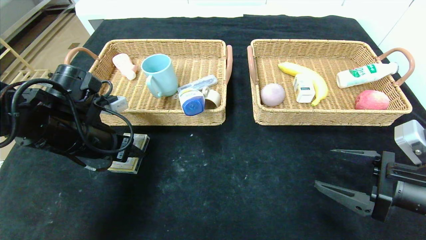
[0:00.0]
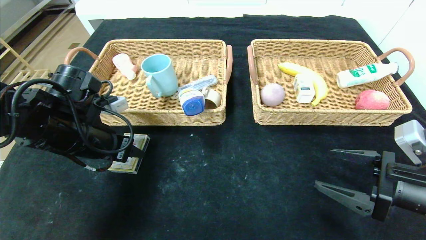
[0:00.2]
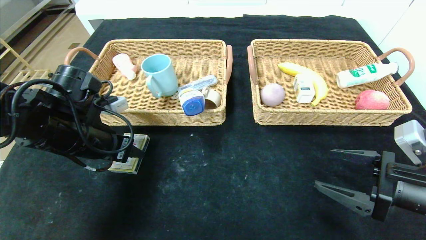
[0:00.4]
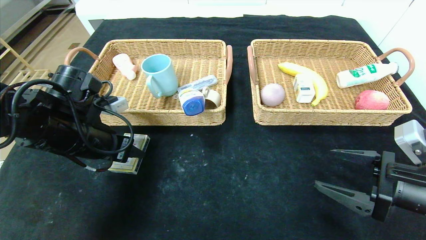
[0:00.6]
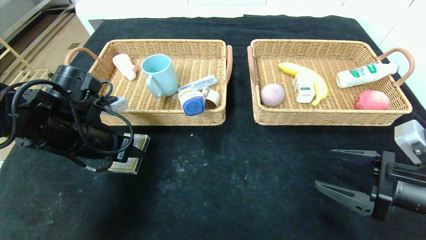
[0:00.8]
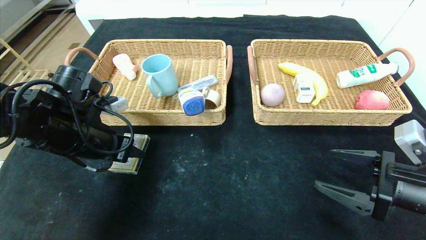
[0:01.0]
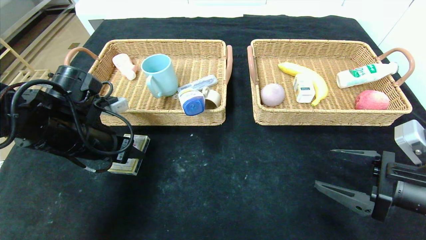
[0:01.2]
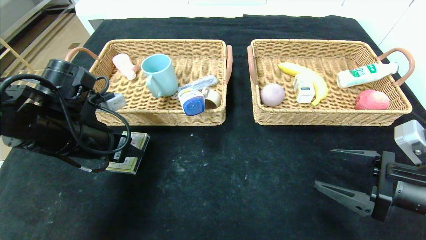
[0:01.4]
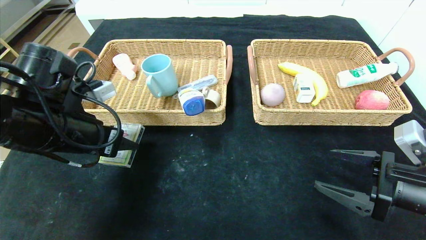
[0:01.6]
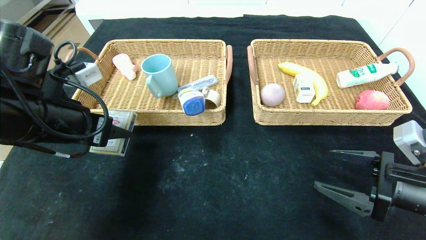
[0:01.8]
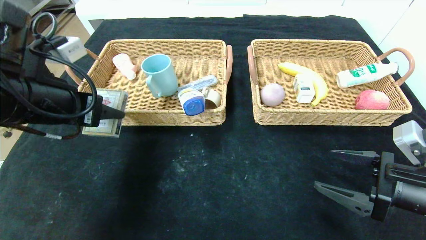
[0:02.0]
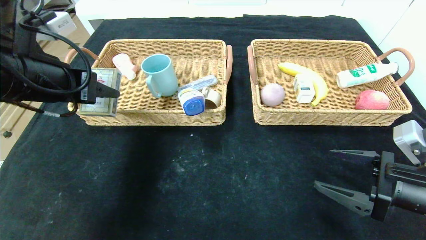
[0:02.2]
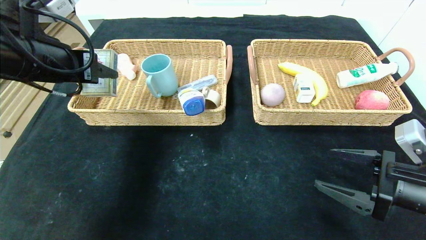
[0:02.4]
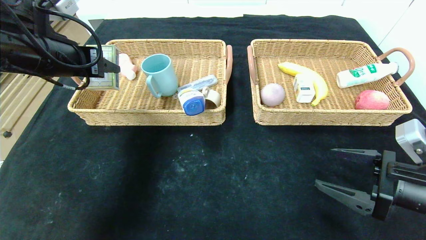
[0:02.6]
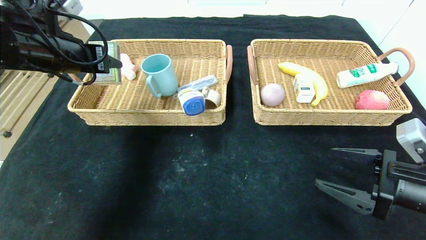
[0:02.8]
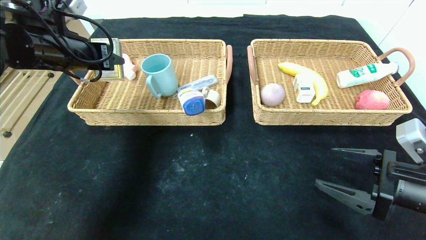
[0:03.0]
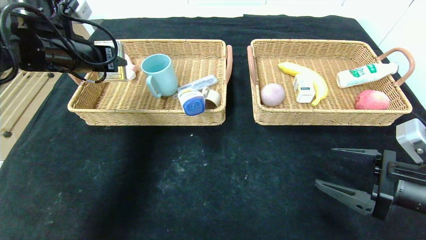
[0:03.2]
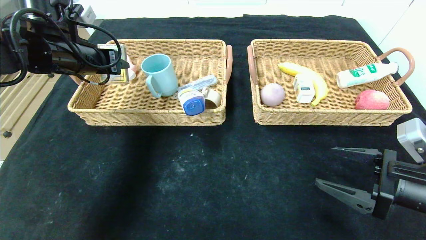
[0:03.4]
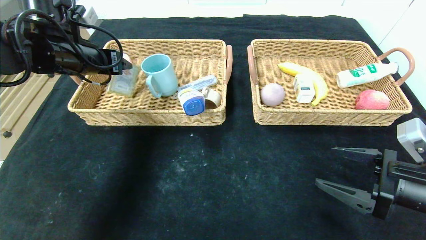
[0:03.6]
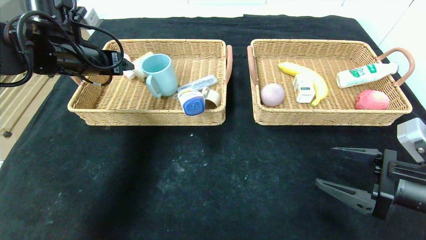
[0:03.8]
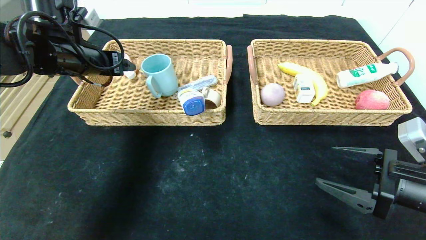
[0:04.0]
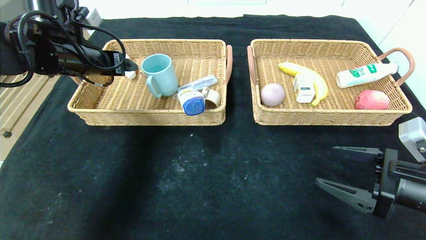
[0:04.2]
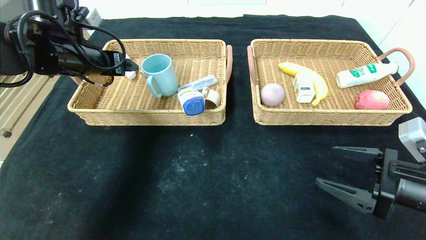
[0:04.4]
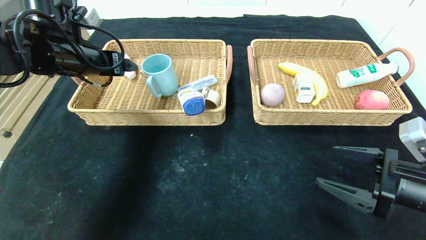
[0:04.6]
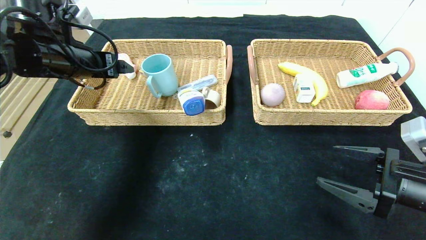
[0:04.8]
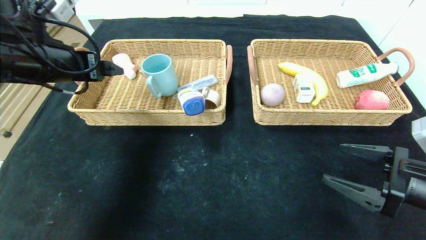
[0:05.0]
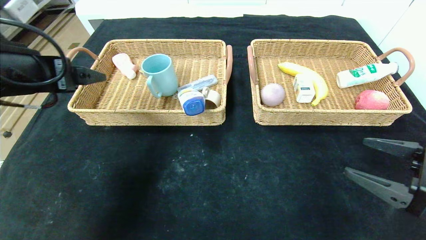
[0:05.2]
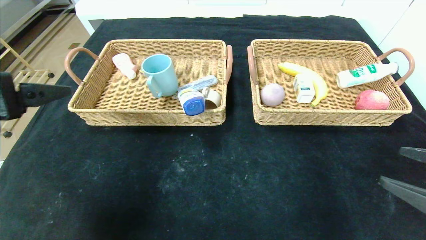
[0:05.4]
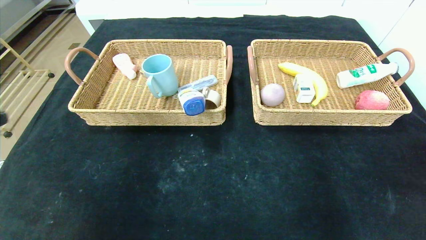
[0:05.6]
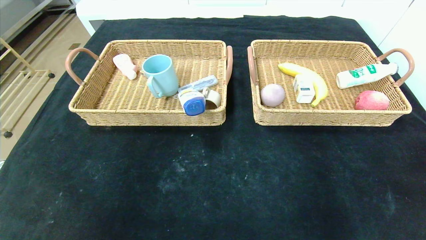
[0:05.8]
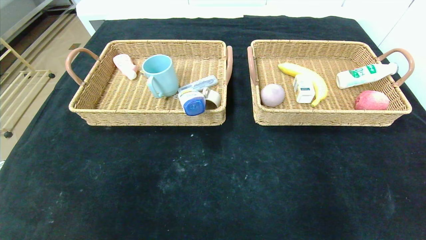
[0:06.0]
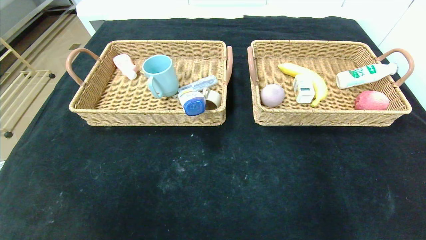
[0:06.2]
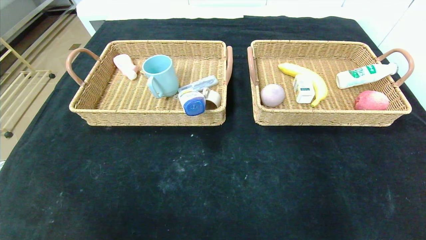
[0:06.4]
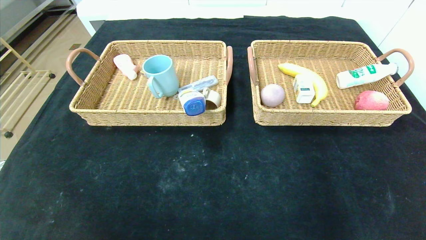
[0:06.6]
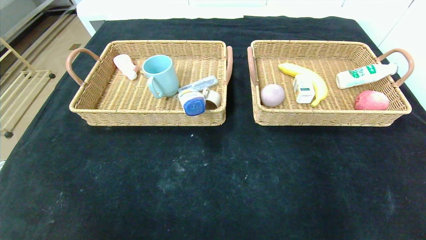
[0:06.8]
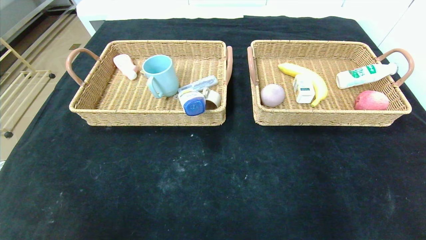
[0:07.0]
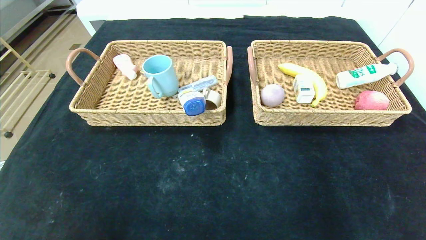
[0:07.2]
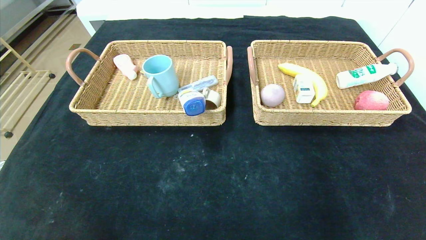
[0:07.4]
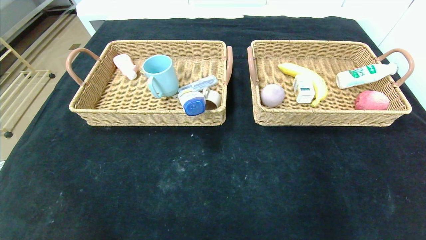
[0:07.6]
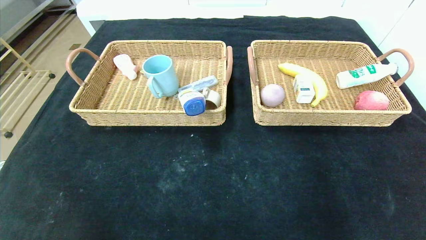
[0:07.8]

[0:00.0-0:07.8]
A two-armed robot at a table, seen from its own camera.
Step, 0:00.0 to 0:05.2: Pick up the playing cards and put it in the left basket.
0:00.0 to 0:01.6: There are only small adjustments of the grippers.
0:01.6 to 0:03.2: The left gripper travels forward and upward by approximately 15 cm.
0:03.2 to 0:04.6: The left gripper opens up.
0:04.6 to 0:06.2: The left gripper travels backward by about 50 cm. Meanwhile the right gripper travels backward by approximately 25 cm.

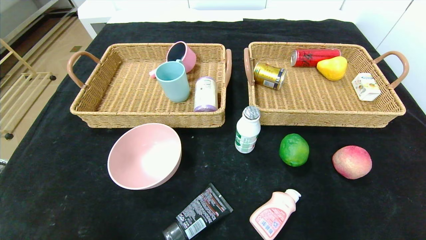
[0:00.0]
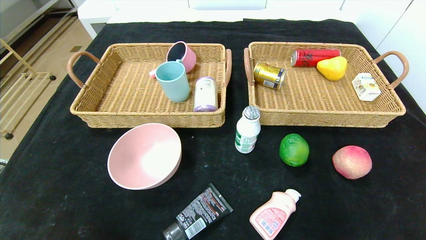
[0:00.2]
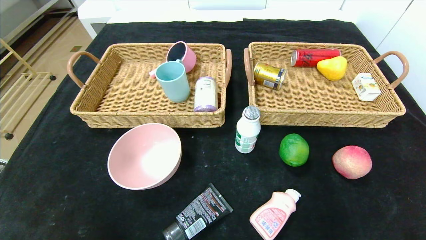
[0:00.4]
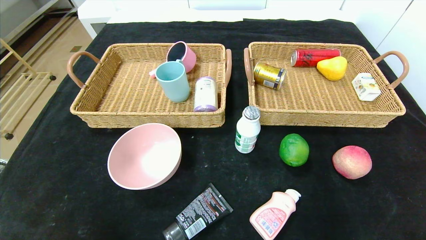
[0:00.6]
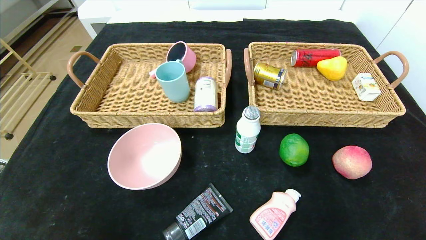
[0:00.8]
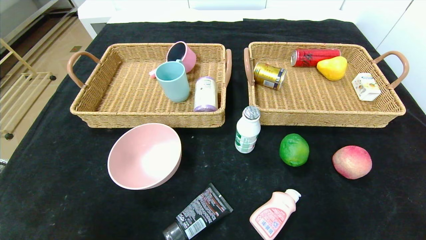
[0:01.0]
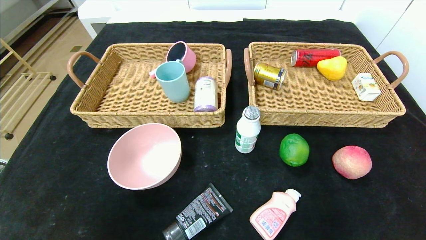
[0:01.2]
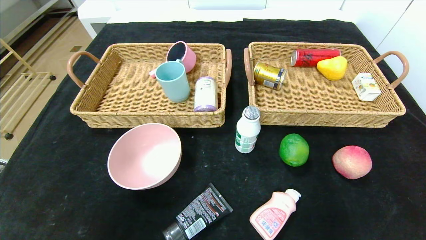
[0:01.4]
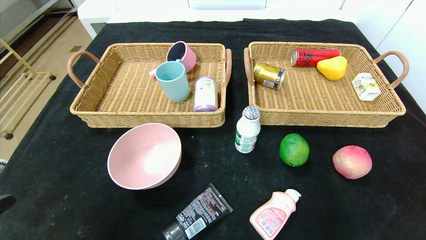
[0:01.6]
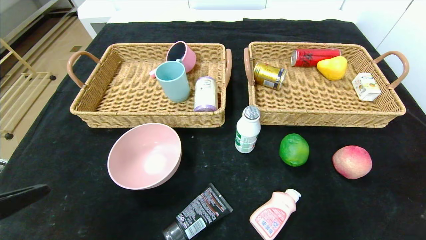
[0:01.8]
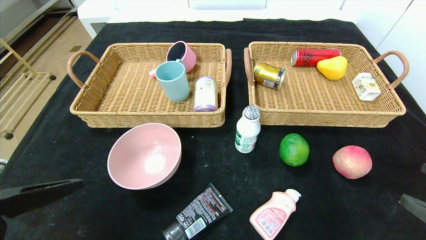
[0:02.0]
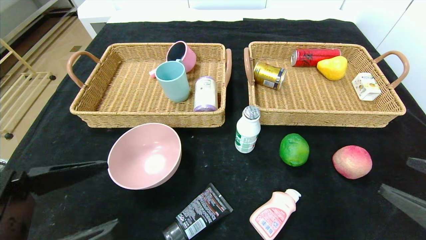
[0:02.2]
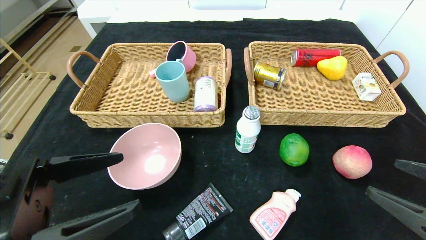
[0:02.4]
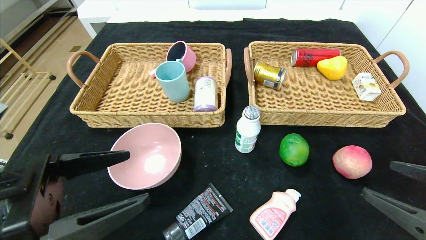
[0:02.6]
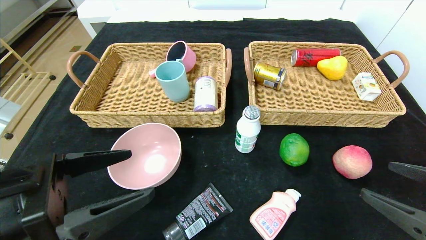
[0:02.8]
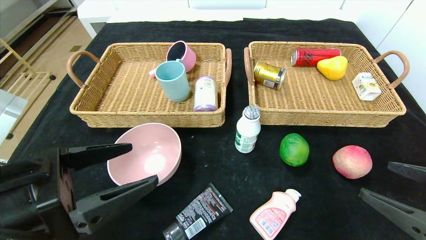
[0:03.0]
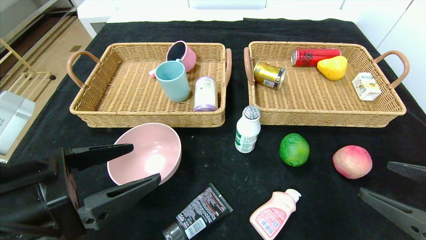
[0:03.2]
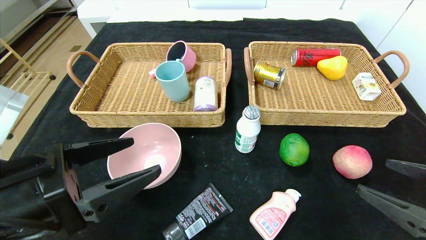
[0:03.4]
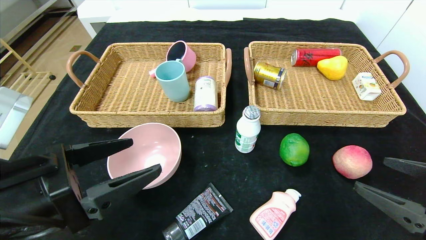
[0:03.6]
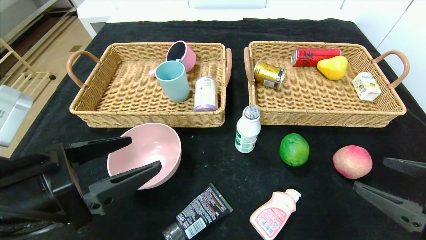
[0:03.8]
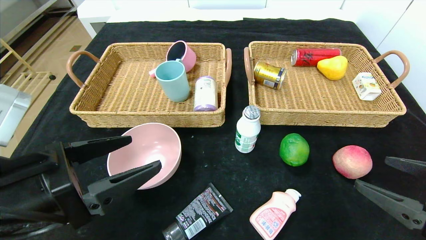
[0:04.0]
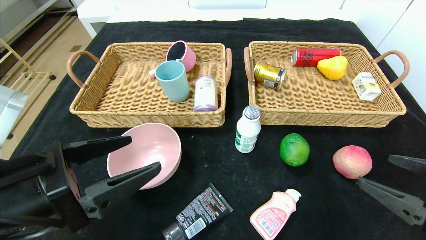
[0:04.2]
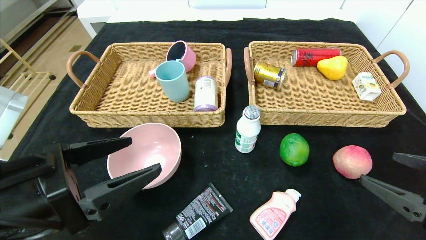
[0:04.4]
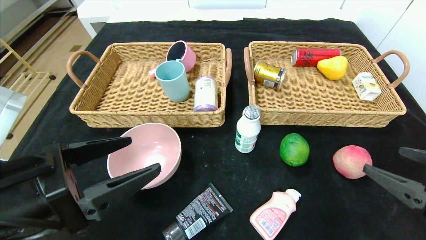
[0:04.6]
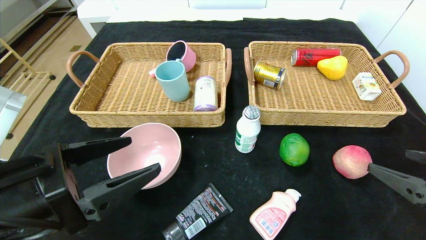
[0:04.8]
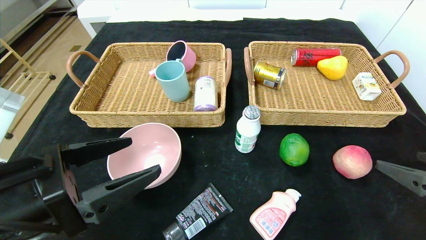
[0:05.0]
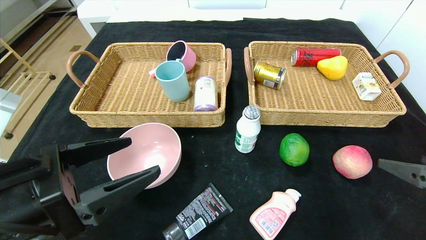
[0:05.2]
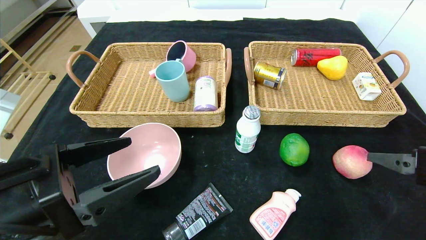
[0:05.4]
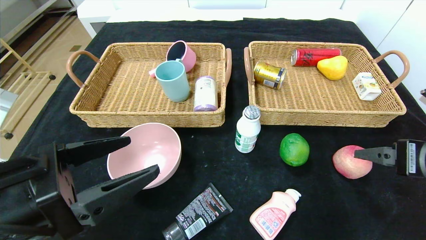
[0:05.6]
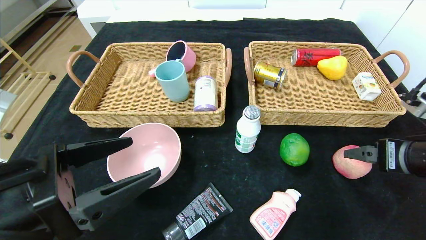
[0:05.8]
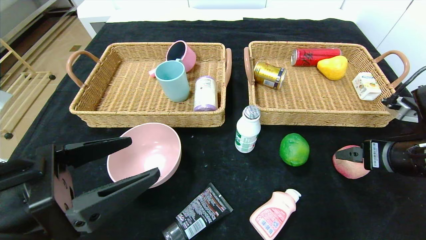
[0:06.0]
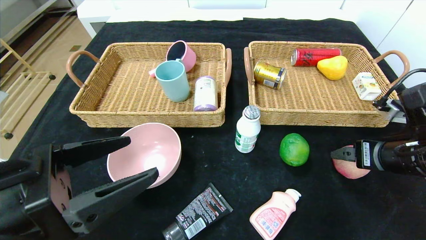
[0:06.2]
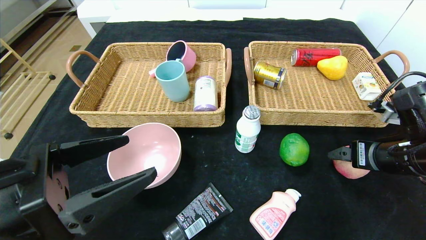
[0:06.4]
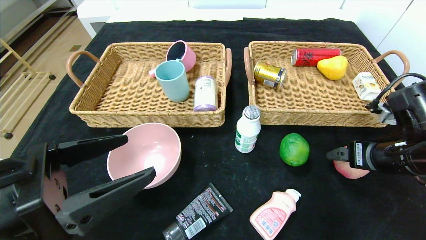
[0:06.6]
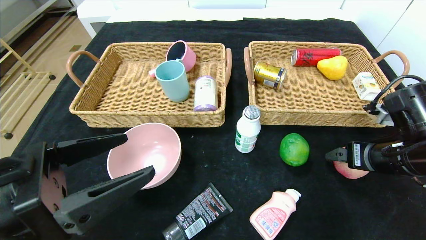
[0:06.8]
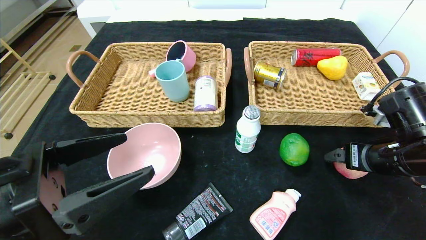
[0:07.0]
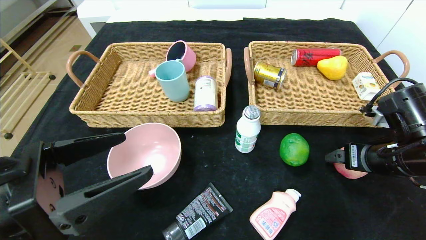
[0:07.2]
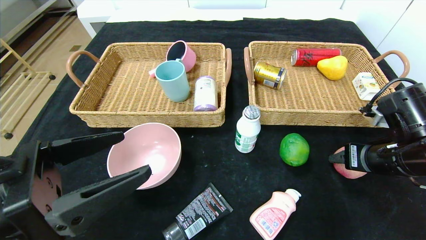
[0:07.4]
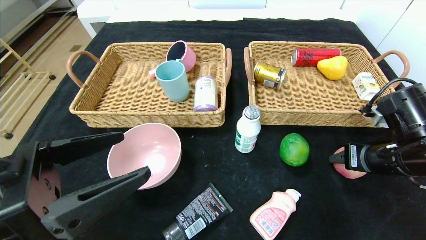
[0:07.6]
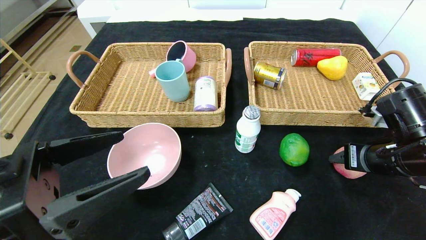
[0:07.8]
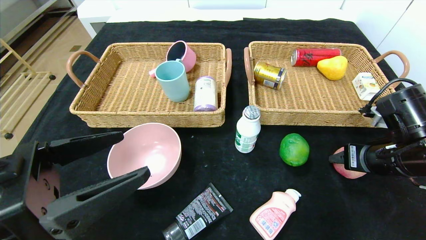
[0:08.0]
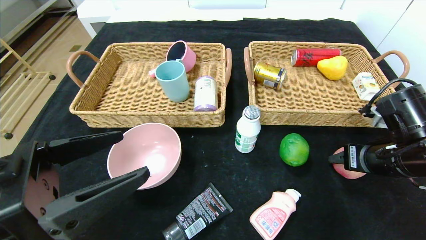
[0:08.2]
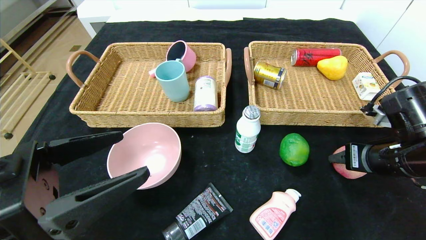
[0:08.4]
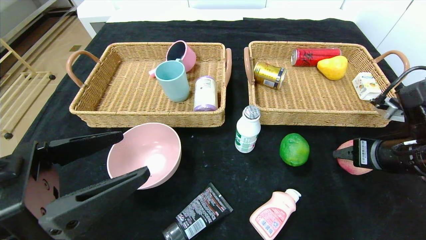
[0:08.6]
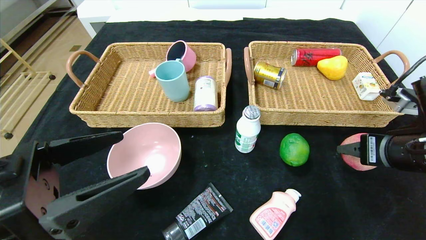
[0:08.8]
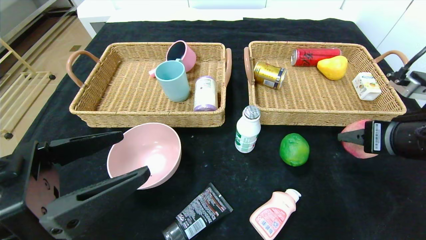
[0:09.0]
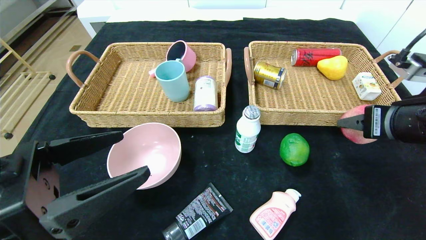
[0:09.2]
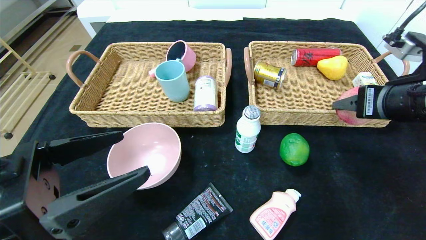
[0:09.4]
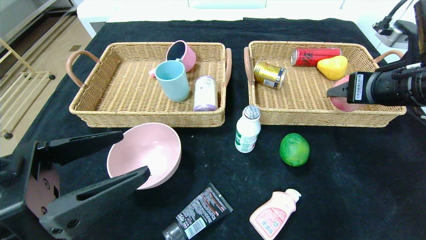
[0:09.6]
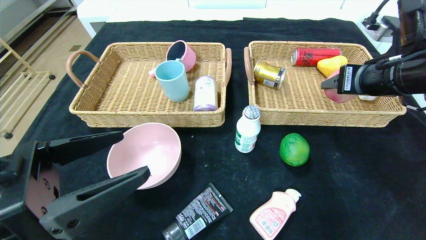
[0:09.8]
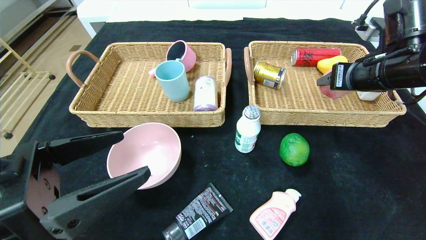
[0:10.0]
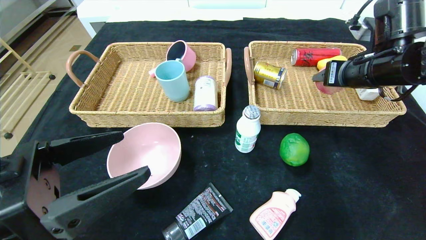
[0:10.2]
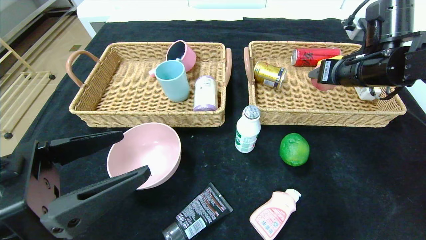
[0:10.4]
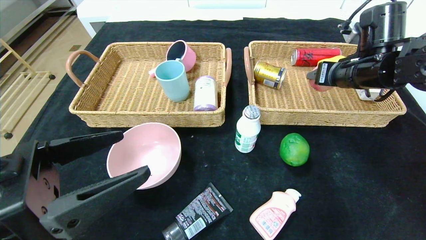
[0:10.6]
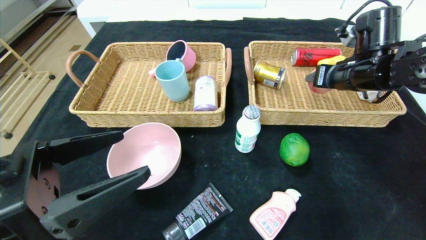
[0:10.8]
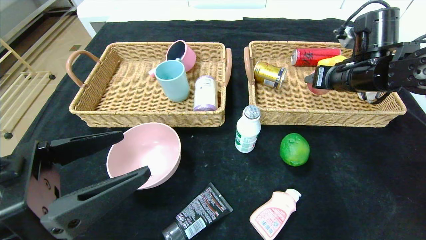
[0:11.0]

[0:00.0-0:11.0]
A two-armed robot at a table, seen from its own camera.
0:01.6 to 0:03.2: The right gripper moves forward, roughly 5 cm. The left gripper goes approximately 10 cm forward and to the right.
0:03.2 to 0:04.8: There are only small adjustments of the grippers.
0:04.8 to 0:06.2: The right gripper moves forward, roughly 10 cm.
0:06.2 to 0:07.8: The right gripper closes its fingers.
0:07.8 to 0:09.4: The right gripper goes roughly 10 cm upward.
0:09.4 to 0:11.0: The right gripper shifts roughly 15 cm forward.
